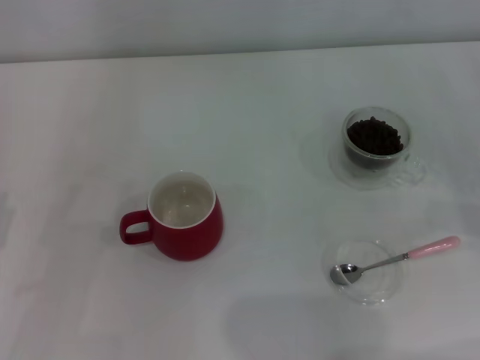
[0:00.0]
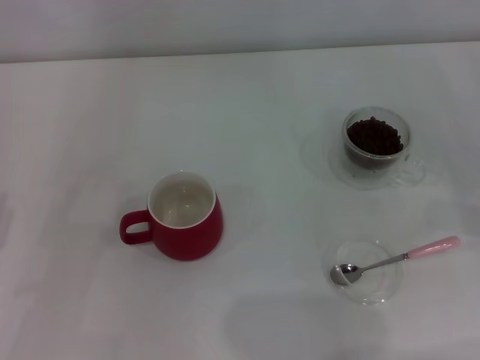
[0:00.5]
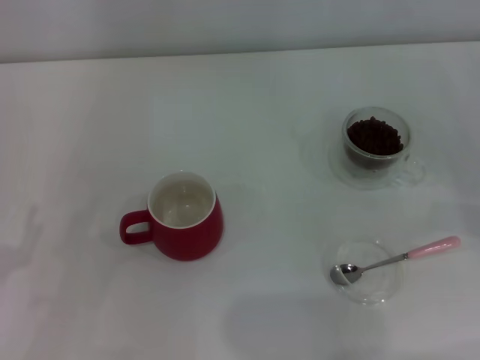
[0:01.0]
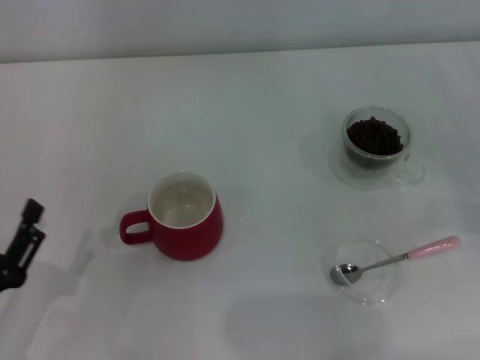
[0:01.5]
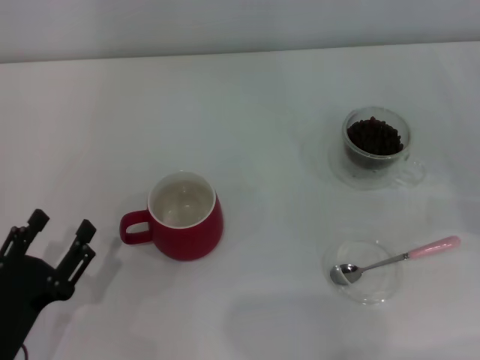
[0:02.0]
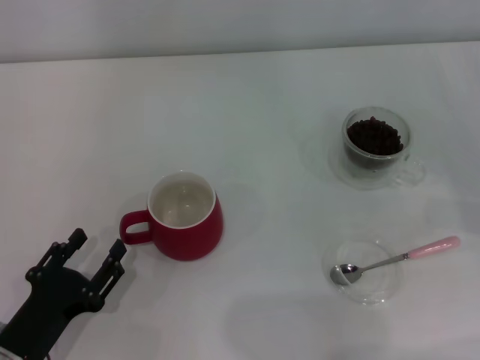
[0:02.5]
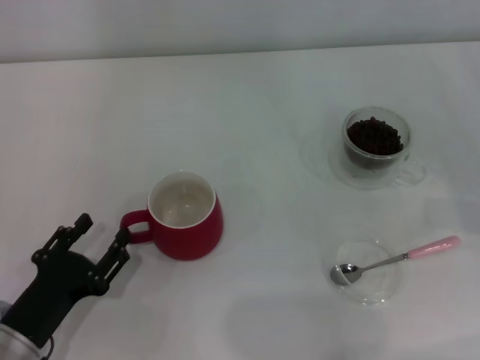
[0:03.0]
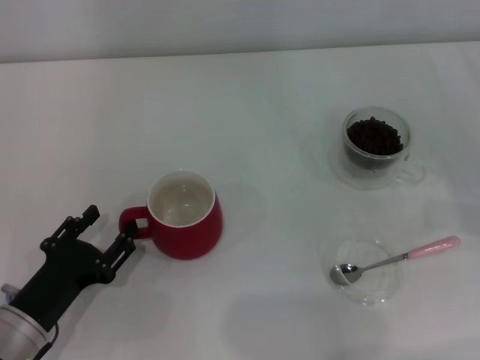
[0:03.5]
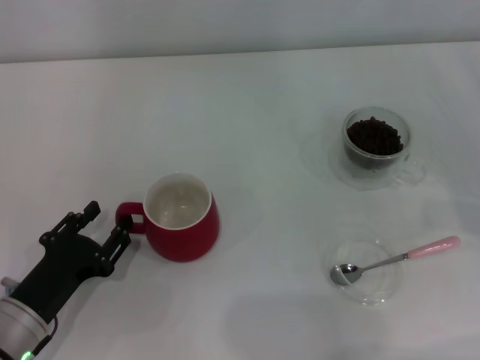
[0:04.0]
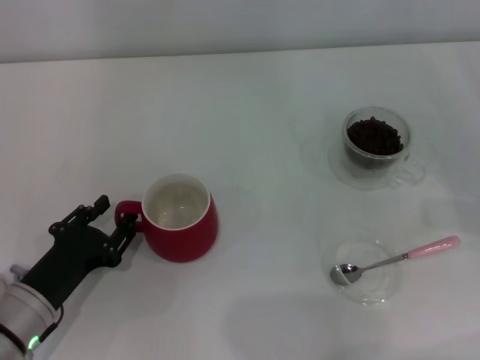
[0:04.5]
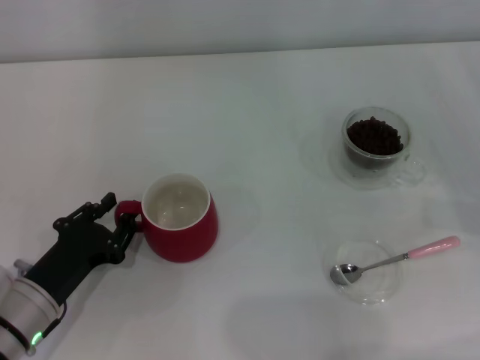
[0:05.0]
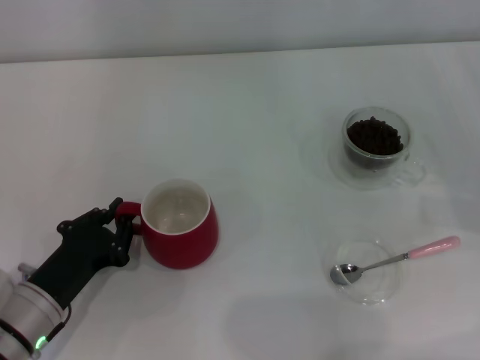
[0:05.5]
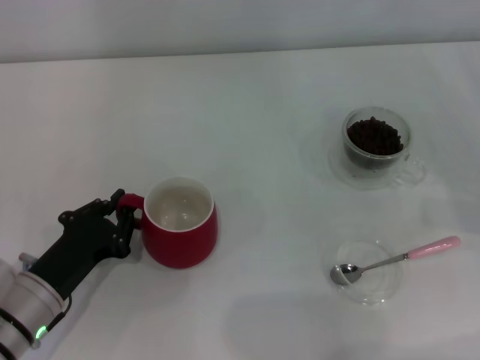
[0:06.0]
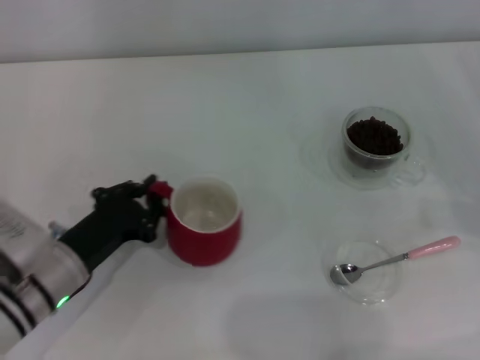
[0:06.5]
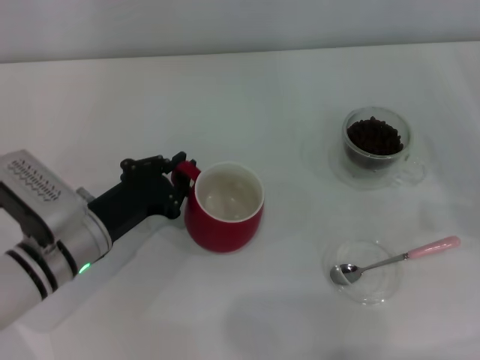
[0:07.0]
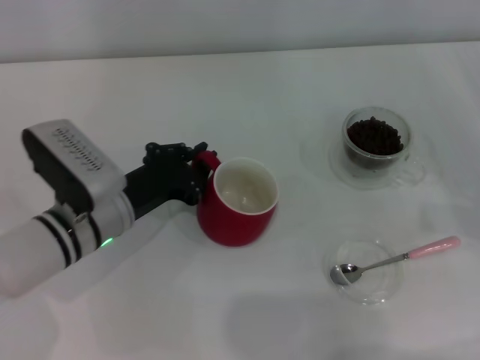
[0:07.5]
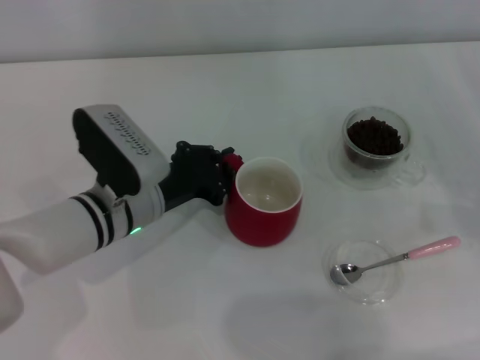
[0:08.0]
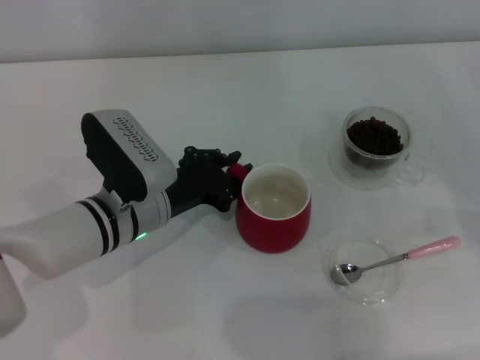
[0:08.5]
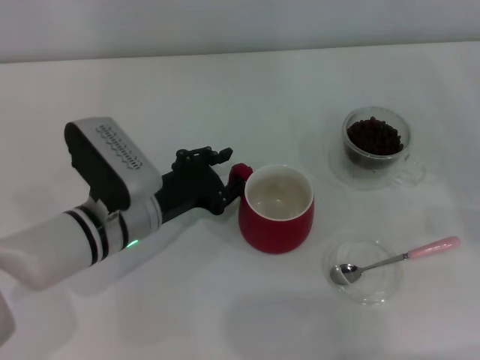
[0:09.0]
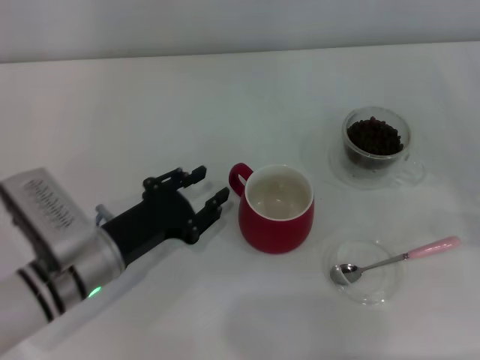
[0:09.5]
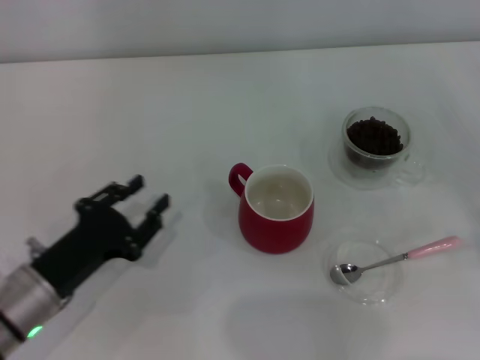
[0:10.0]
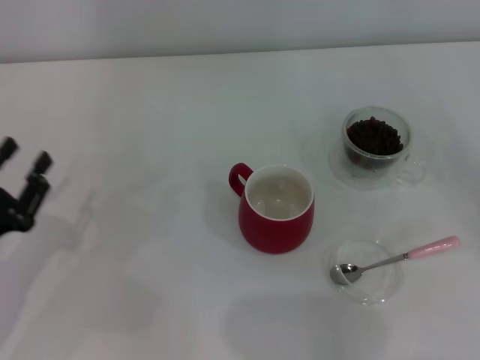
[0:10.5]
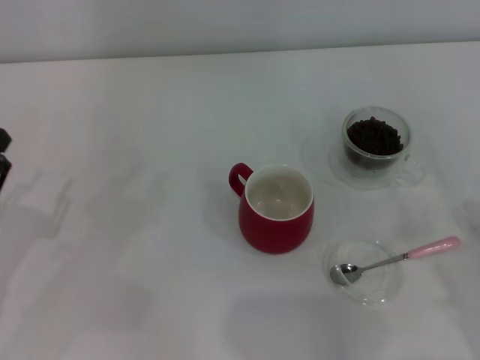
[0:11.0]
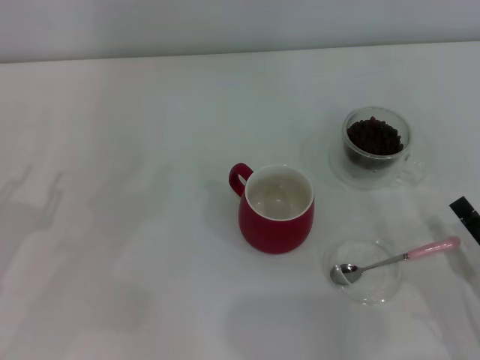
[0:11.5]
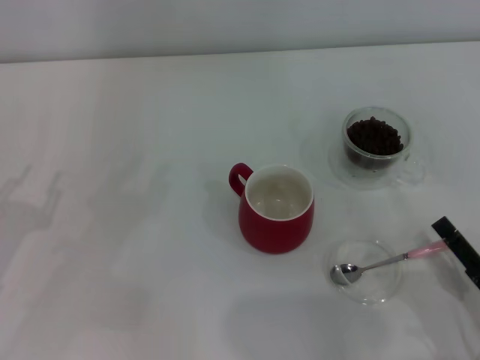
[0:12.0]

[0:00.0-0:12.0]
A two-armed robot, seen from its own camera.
Task of the whole recording: Use a pink spoon to take out the coffee beans from the glass and pour them into the red cup.
Step, 0:00.0 to 0:09.5: Move the cup to the center of view with the left gripper.
0:00.0 to 0:02.0: The left gripper travels to the right by approximately 5 cm.
0:02.0 to 0:04.0: The left gripper shifts about 5 cm forward.
0:04.0 to 0:06.0: The left gripper closes its fingers.
0:06.0 to 0:08.0: The left gripper moves to the right and forward, approximately 15 cm.
0:08.0 to 0:10.0: The left gripper shifts approximately 15 cm to the left and backward, and opens its fingers.
0:10.0 to 0:12.0: The left gripper moves to the left, roughly 10 cm. Meanwhile the right gripper is displaced to the left and backward by about 15 cm.

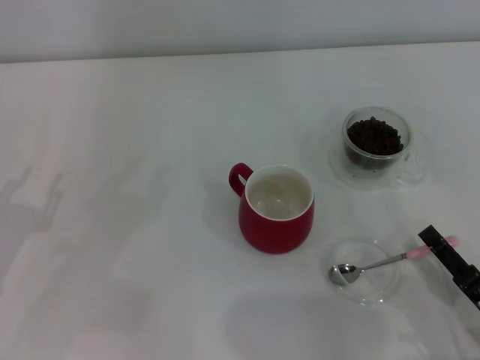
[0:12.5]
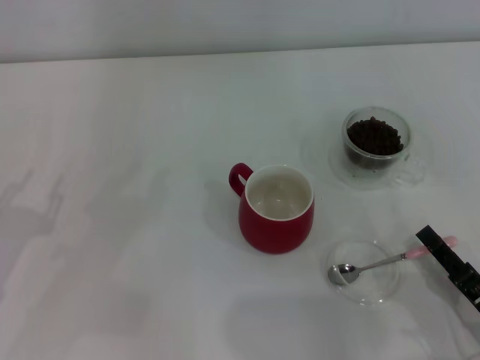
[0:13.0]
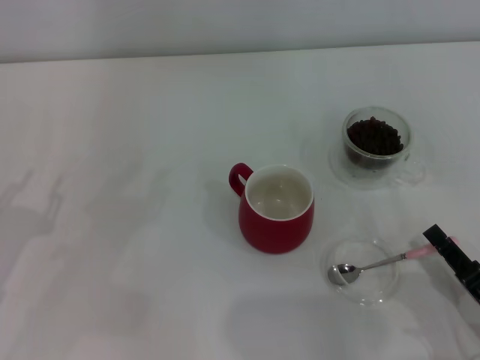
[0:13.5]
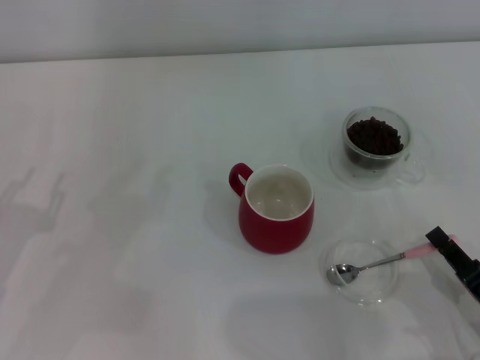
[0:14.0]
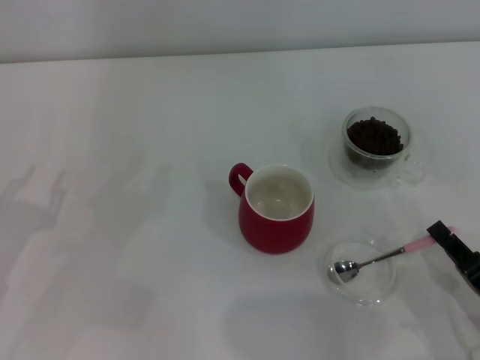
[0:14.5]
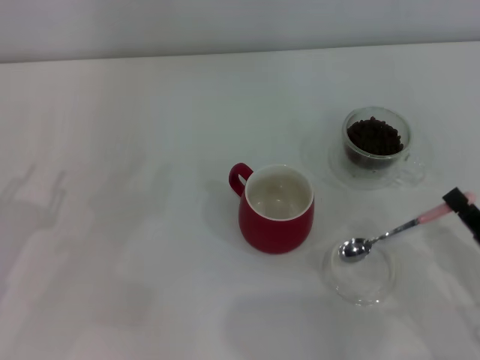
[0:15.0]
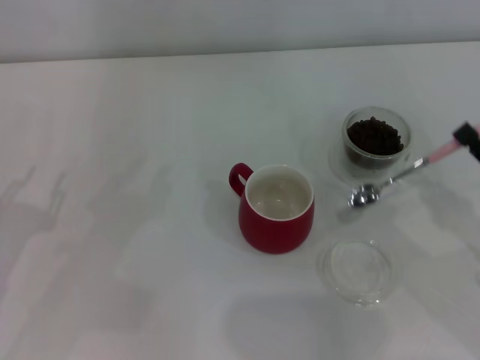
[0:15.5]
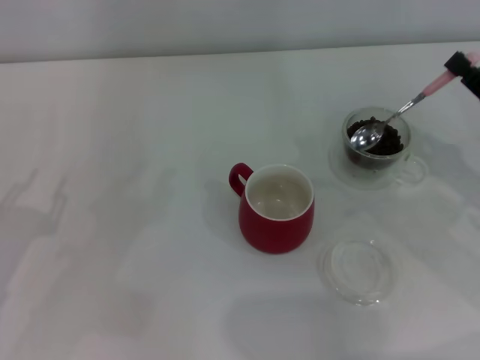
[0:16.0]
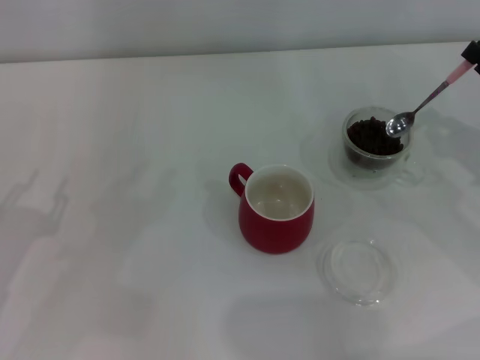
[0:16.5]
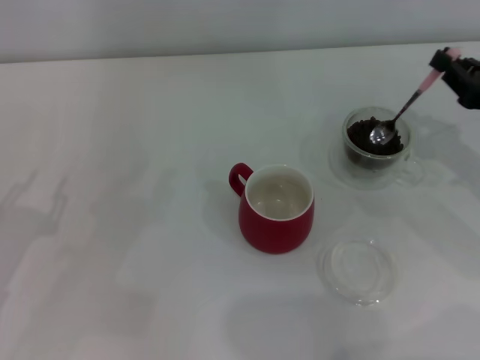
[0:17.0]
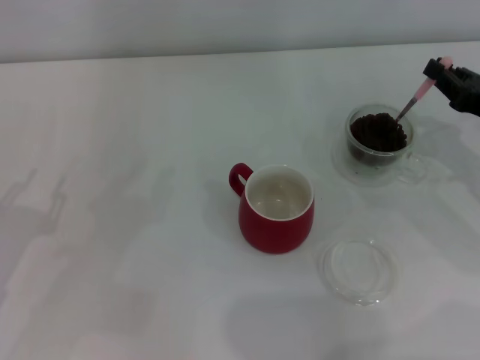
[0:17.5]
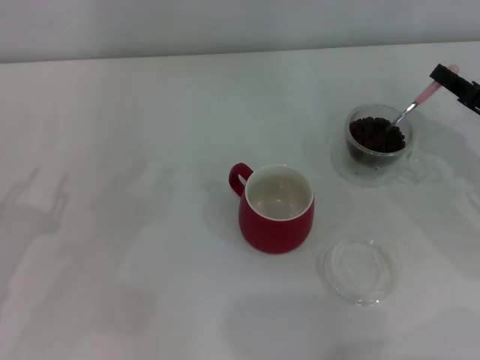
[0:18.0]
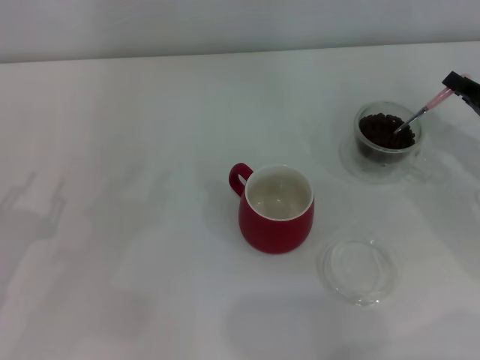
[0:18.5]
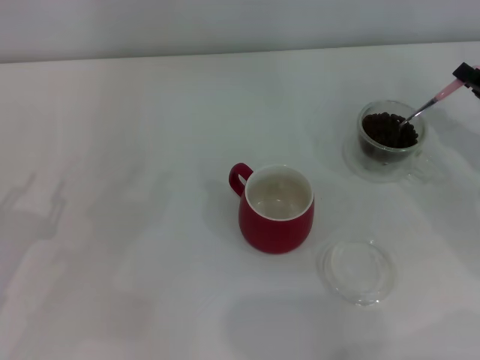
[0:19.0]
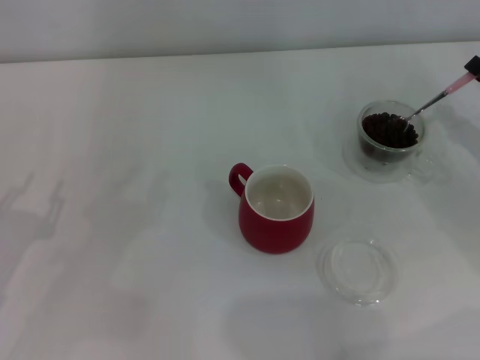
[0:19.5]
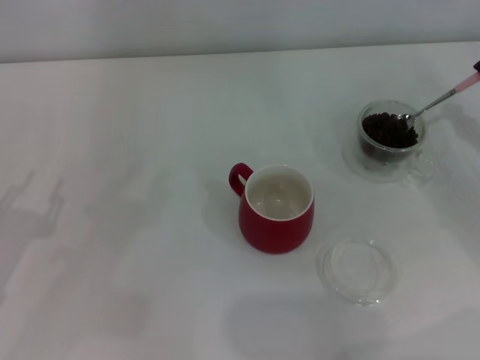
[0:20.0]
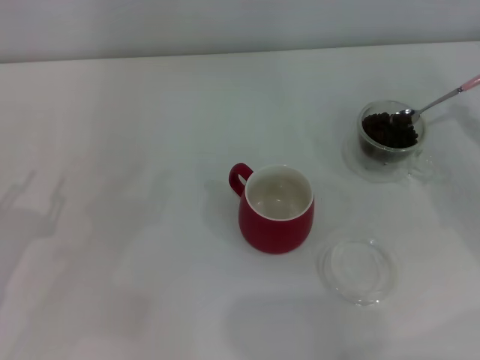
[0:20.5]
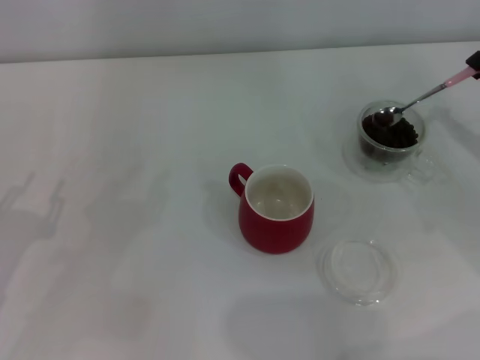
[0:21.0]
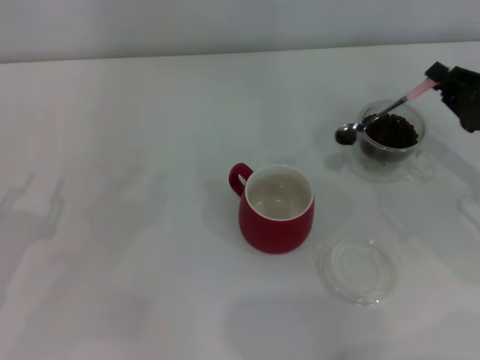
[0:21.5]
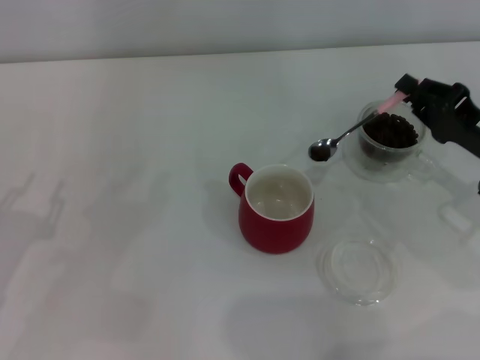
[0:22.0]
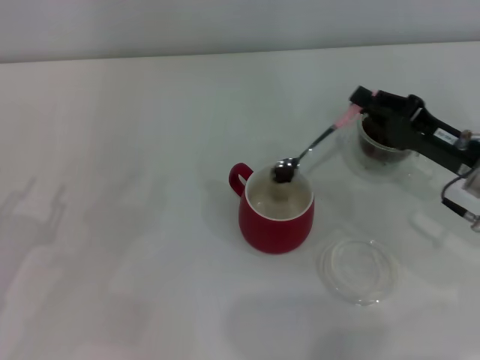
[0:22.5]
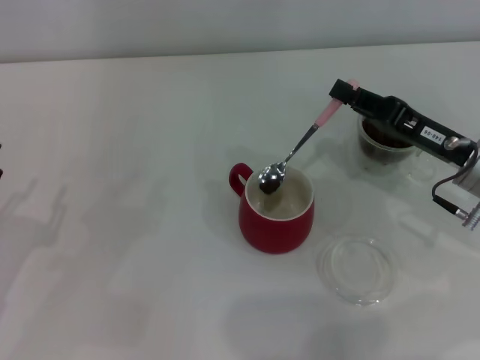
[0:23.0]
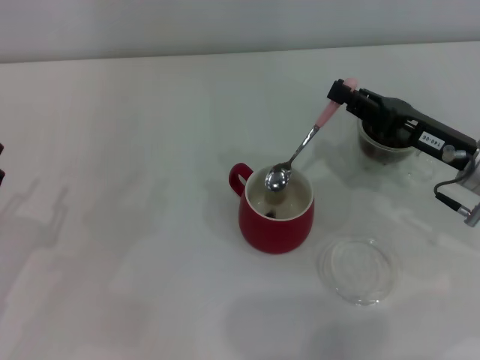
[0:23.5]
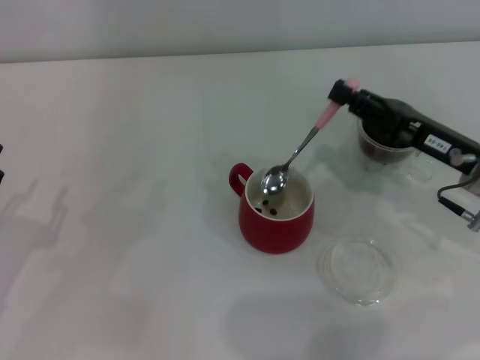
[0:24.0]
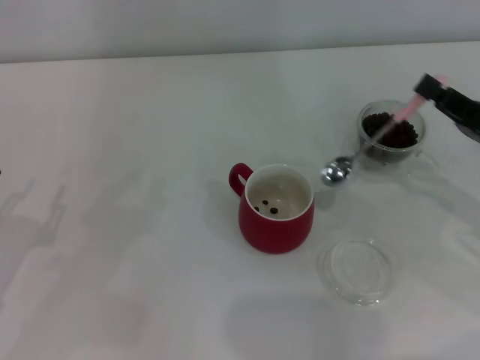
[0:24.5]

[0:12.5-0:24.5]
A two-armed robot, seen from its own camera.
Task of the whole recording: Use a pink spoon to take out the coffee beans from the glass and pour them into the red cup.
Step, 0:12.5 to 0:15.0: Pick up the spoon with the right gripper.
Step, 0:15.5 to 0:24.0: Scoop a spoonful of beans into the cup with the right gripper.
0:12.5 to 0:14.5: The right gripper closes up.
0:14.5 to 0:16.5: The right gripper is displaced forward, upward and to the right by approximately 20 cm.
0:18.5 to 0:20.5: There are only small adjustments of the grippers.
0:20.5 to 0:22.5: The right gripper travels to the left by roughly 10 cm.
0:22.5 to 0:24.5: The right gripper ends up about 5 cm from where it was.

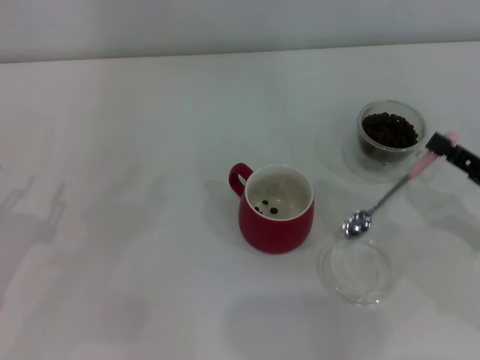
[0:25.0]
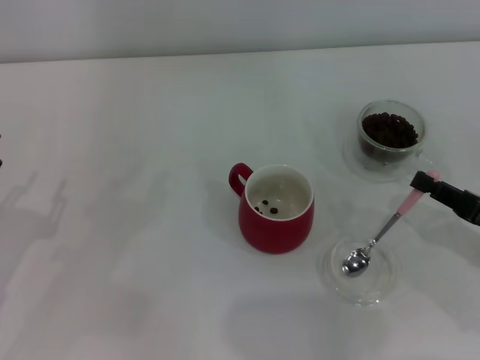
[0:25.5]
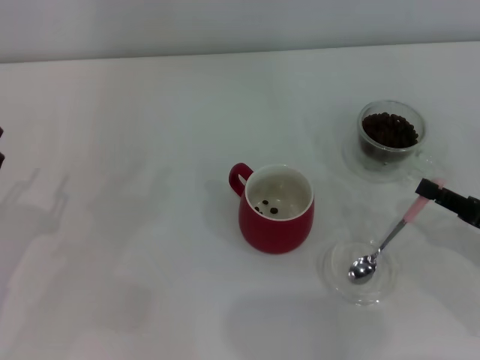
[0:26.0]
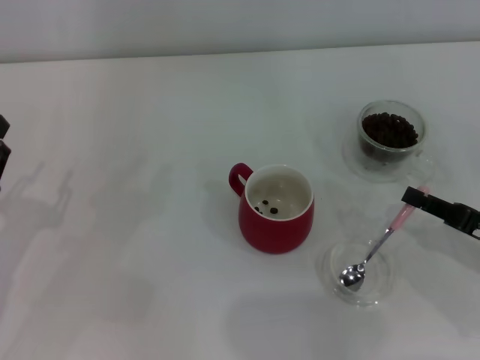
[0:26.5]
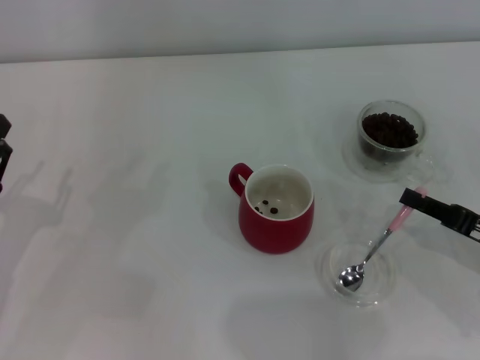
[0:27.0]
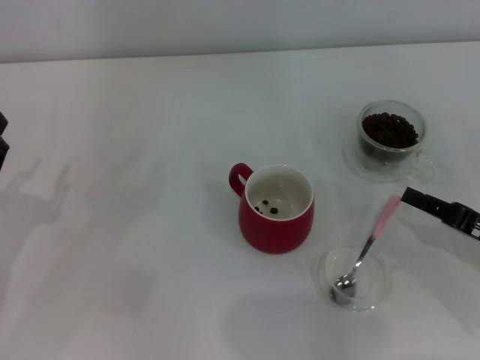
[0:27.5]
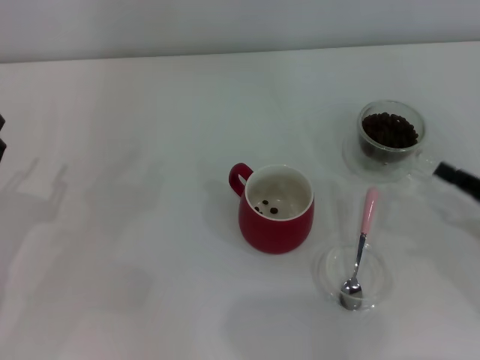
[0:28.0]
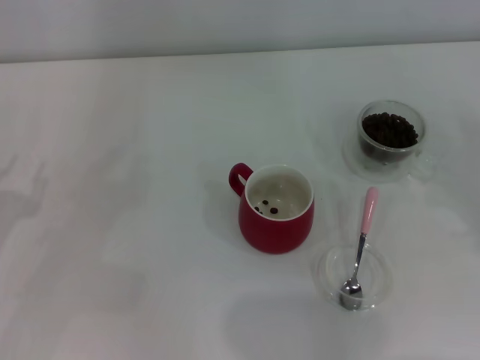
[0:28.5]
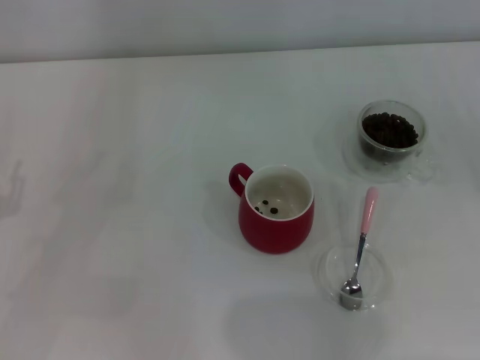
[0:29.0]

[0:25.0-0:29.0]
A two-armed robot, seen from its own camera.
Task of the whole recording: Use a pink spoon to take out the coffee beans from the glass and pour them into the red cup.
Step, 0:25.0 to 0:27.5: Place the spoon back in its original place with the right gripper.
0:25.0 to 0:27.0: The grippers stay close to where they were, moving slightly.
0:27.0 to 0:29.0: The right gripper travels to the right by roughly 10 cm.
